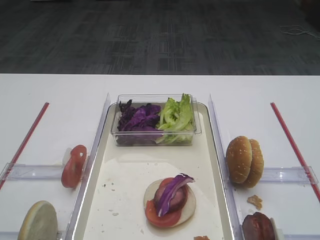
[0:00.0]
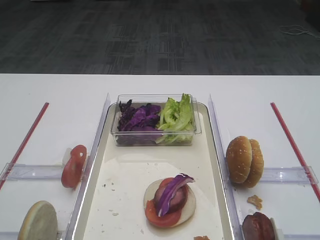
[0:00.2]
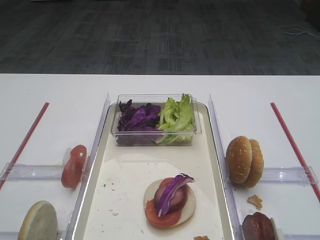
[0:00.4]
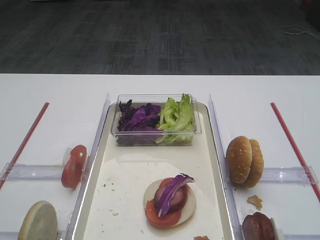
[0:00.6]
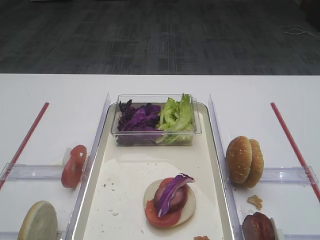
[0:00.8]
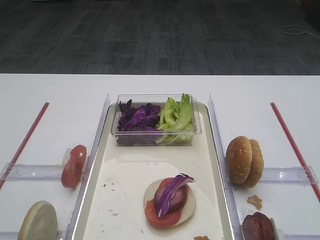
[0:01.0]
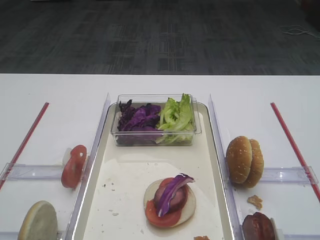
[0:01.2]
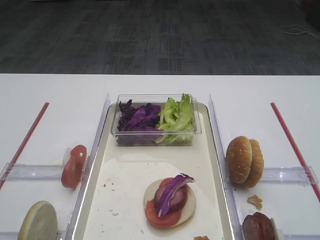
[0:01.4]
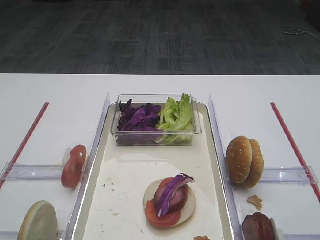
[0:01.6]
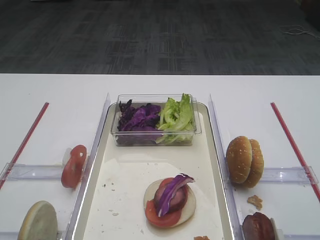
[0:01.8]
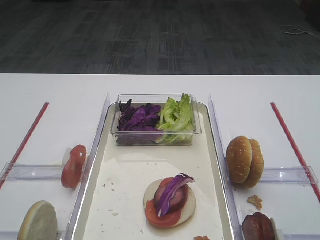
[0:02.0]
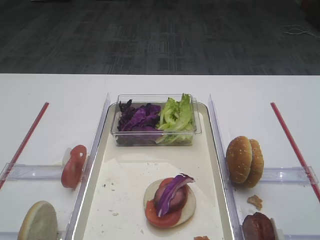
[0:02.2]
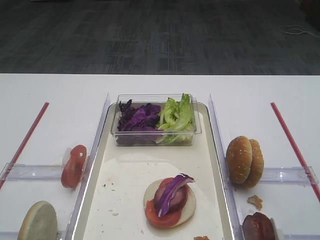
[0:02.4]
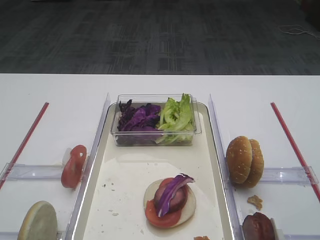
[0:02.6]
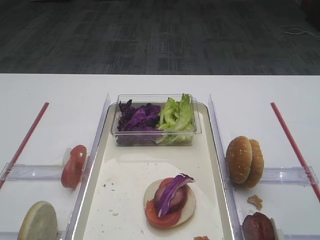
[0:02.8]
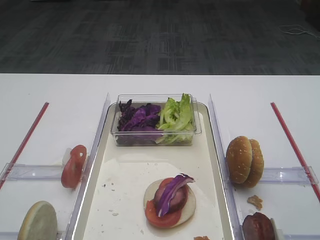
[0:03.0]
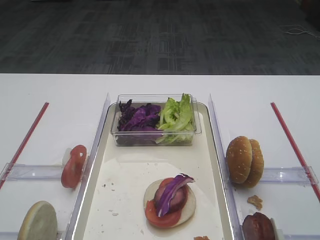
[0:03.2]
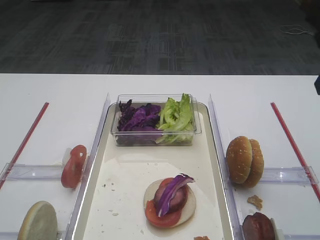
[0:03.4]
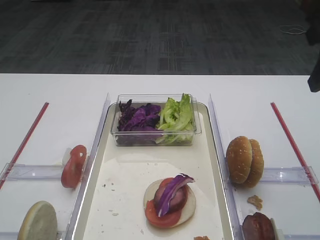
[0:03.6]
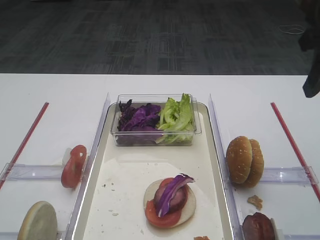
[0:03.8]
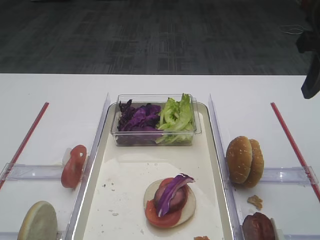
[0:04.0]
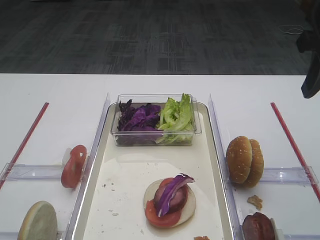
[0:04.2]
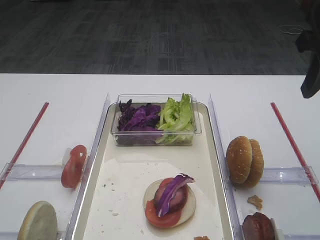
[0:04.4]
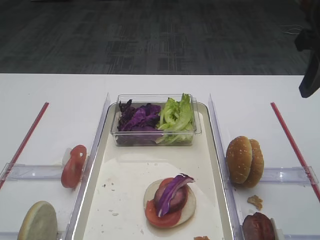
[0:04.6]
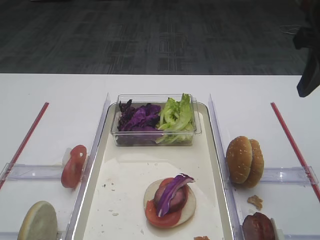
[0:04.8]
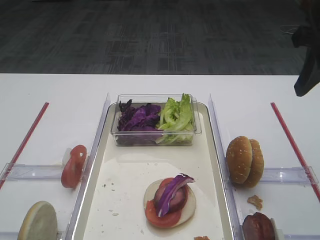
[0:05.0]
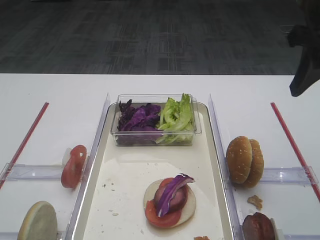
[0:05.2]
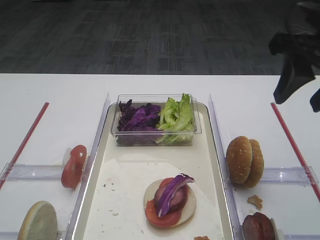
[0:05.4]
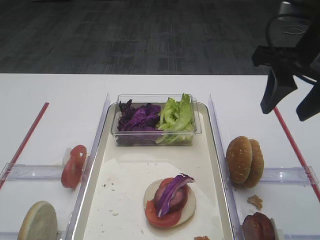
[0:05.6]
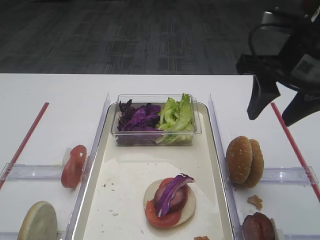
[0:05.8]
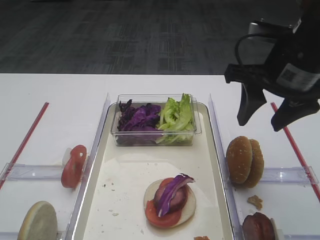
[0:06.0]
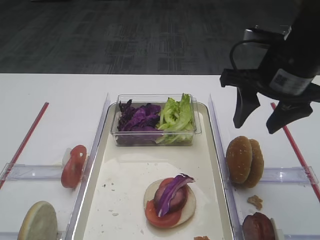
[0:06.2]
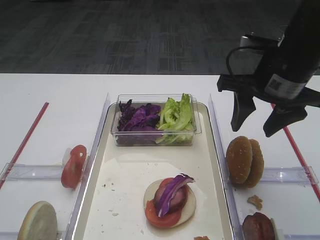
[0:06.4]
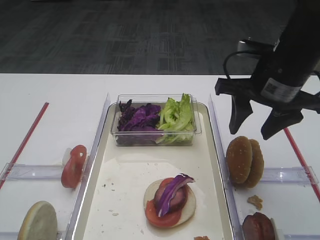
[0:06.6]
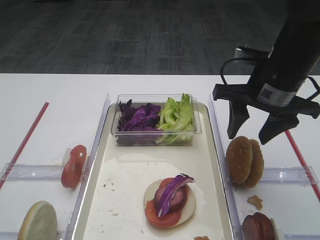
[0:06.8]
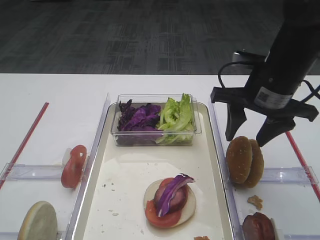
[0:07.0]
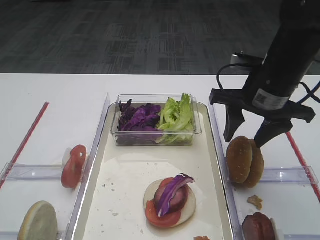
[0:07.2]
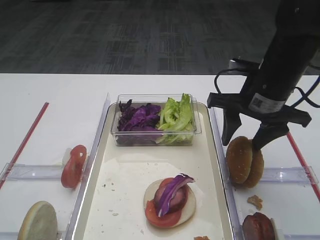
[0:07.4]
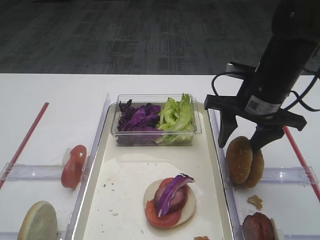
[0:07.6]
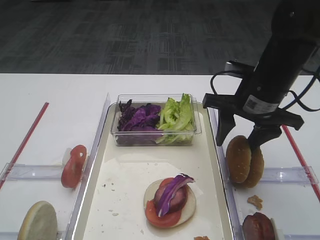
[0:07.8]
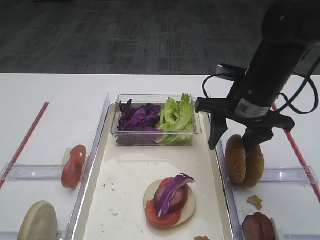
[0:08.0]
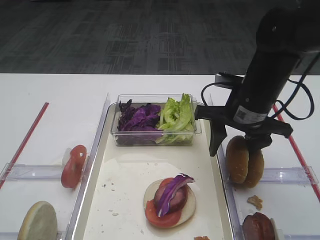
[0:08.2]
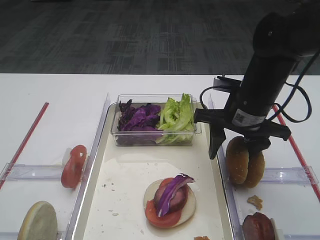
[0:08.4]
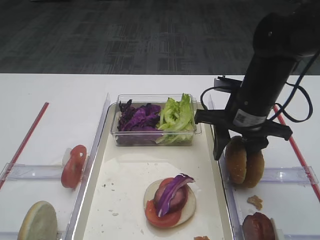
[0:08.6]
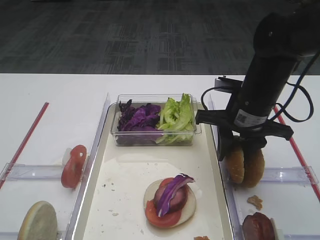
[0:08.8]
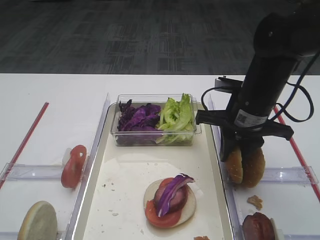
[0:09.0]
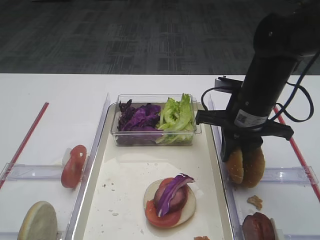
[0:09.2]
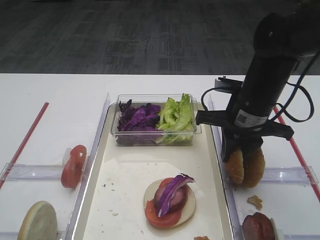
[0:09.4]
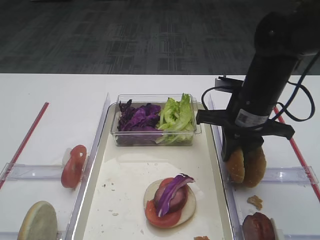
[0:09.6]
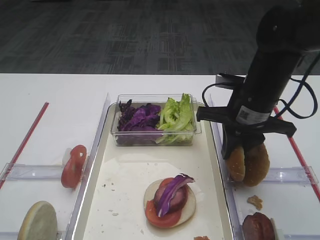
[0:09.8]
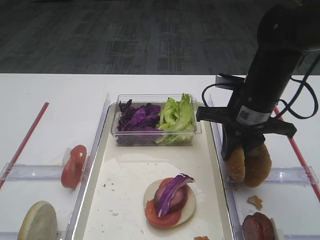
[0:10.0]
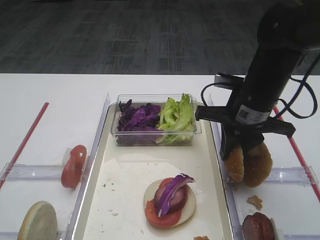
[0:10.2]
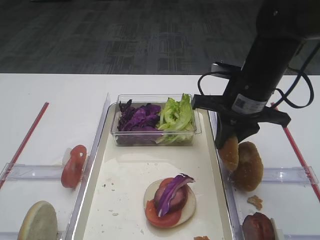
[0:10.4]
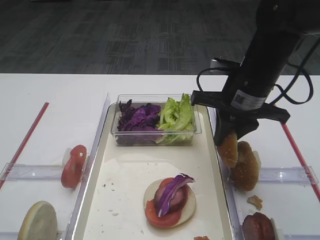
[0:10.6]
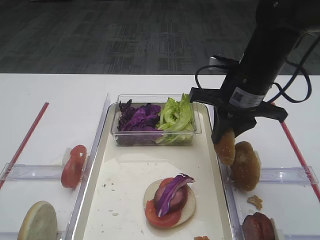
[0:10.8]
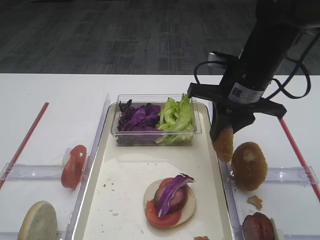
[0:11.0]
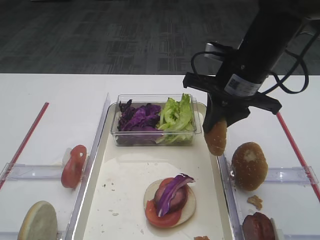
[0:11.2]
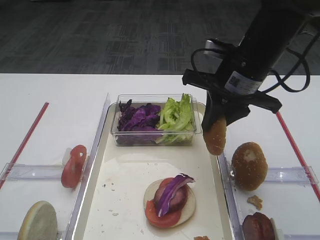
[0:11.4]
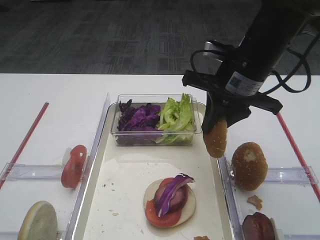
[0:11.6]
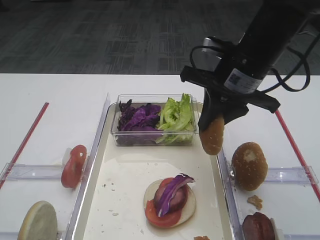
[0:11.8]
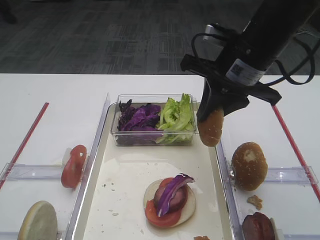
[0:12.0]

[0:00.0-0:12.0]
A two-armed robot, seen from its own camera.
Step, 0:00.0 to 0:11.6: Pick up the hamburger lid with the right gripper.
0:03.0 to 0:04.4: The right gripper heads forward, covering some 5 cm.
0:04.4 to 0:06.0: The right gripper is displaced to the left by some 5 cm.
0:06.0 to 0:07.6: The right gripper shifts some 10 cm downward.
0:07.6 to 0:09.0: The right gripper closes its fingers.
0:09.0 to 0:10.4: There are only small adjustments of the grippers.
0:10.4 to 0:12.0: The right gripper is displaced upward by some 5 cm.

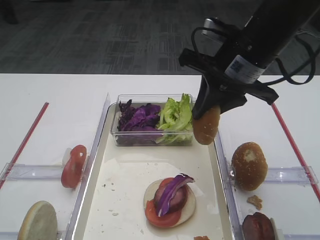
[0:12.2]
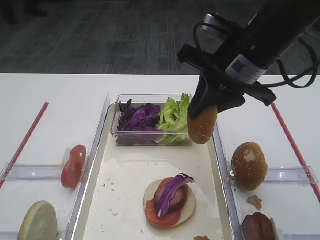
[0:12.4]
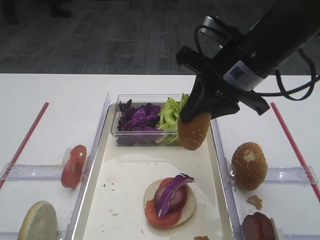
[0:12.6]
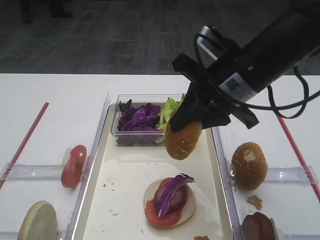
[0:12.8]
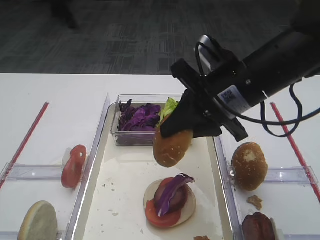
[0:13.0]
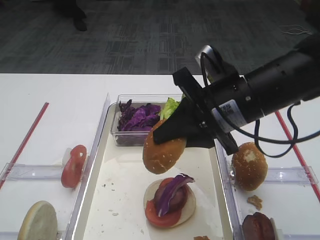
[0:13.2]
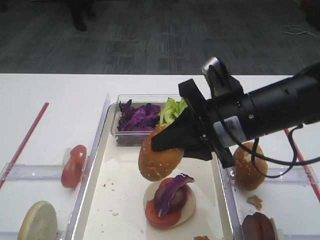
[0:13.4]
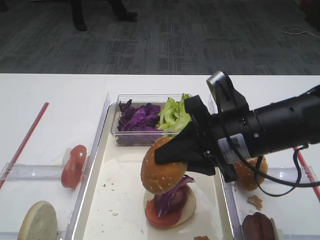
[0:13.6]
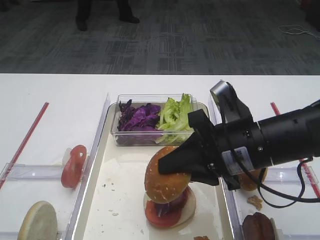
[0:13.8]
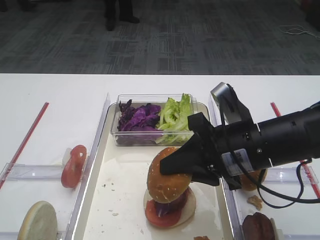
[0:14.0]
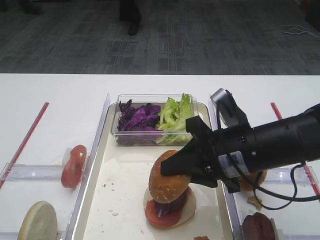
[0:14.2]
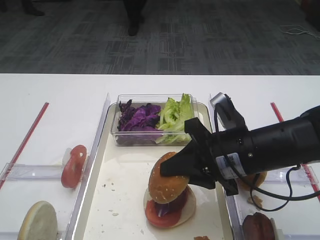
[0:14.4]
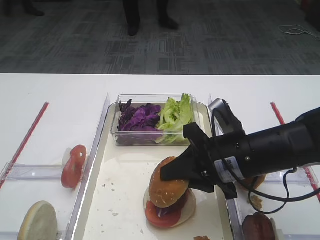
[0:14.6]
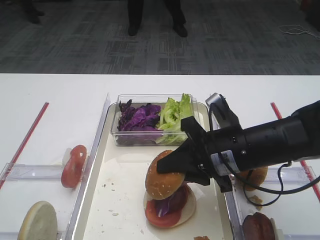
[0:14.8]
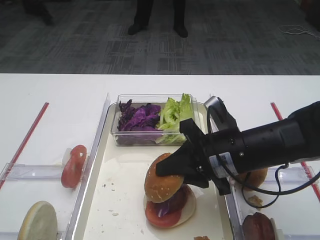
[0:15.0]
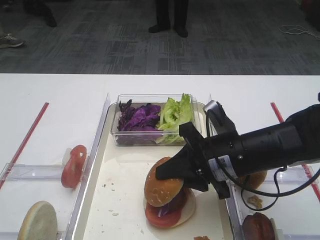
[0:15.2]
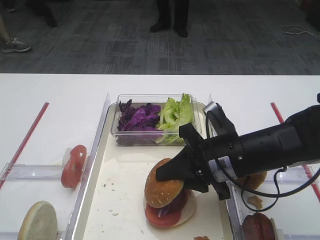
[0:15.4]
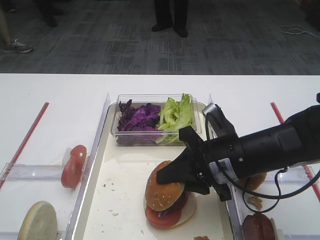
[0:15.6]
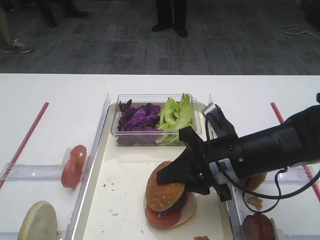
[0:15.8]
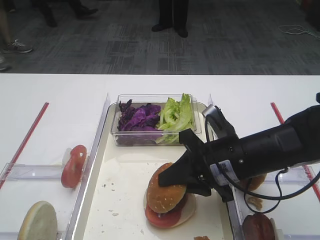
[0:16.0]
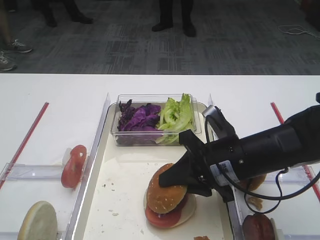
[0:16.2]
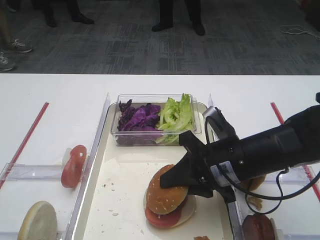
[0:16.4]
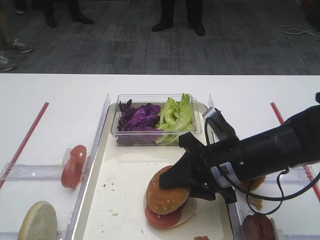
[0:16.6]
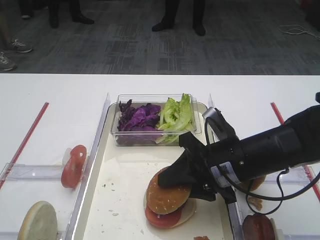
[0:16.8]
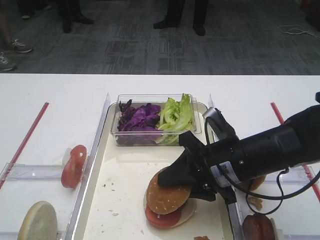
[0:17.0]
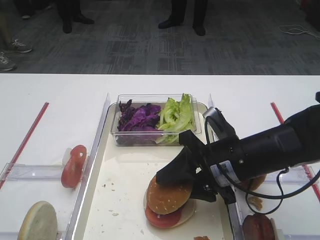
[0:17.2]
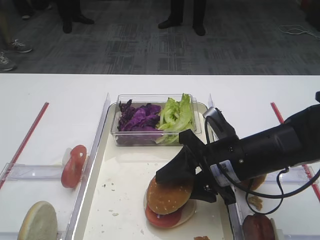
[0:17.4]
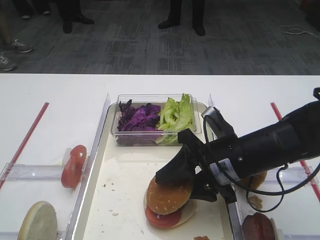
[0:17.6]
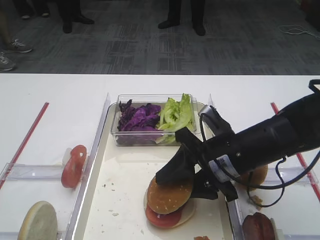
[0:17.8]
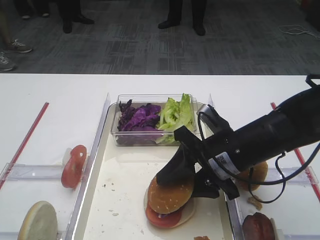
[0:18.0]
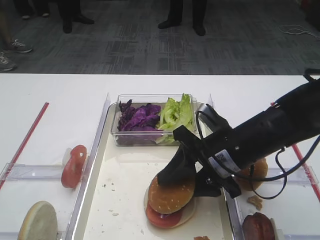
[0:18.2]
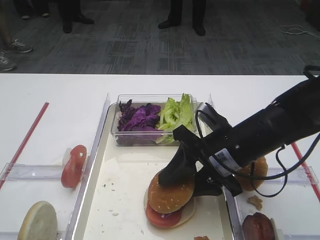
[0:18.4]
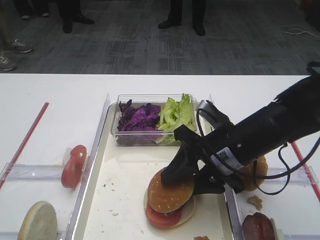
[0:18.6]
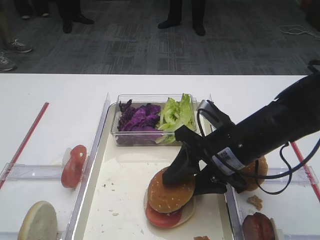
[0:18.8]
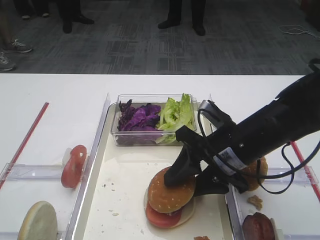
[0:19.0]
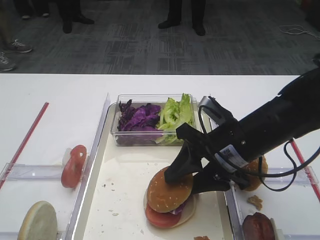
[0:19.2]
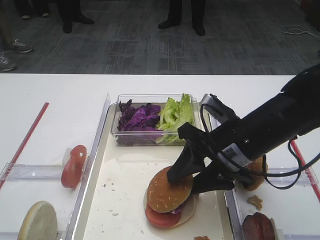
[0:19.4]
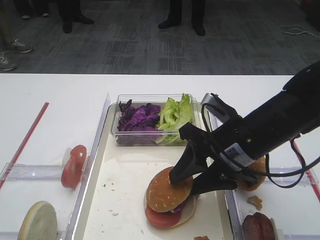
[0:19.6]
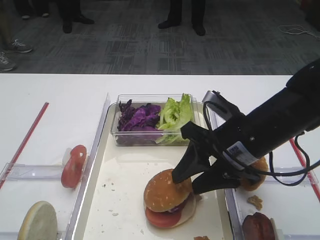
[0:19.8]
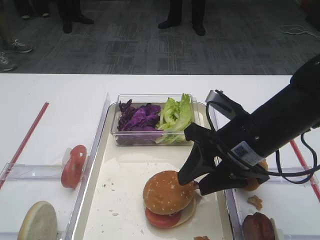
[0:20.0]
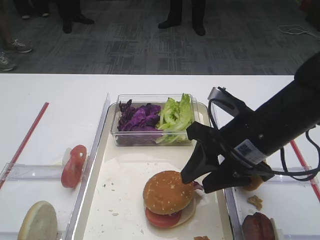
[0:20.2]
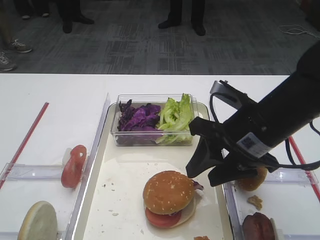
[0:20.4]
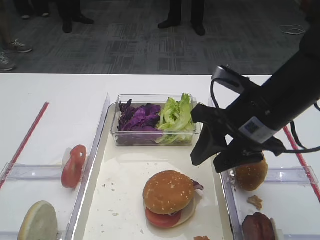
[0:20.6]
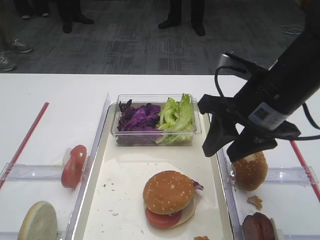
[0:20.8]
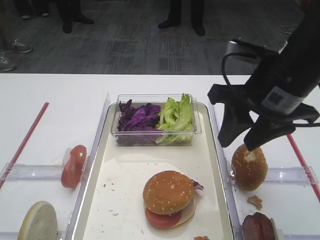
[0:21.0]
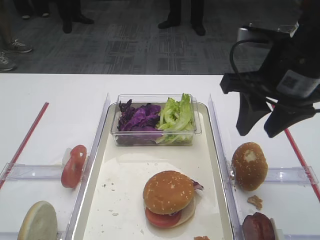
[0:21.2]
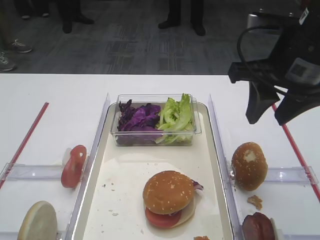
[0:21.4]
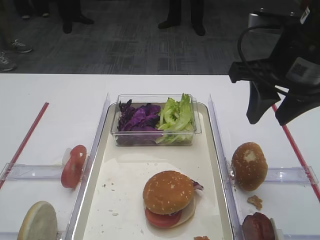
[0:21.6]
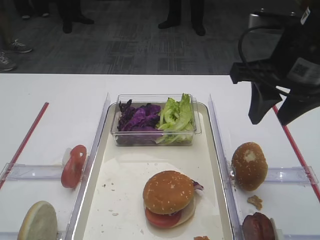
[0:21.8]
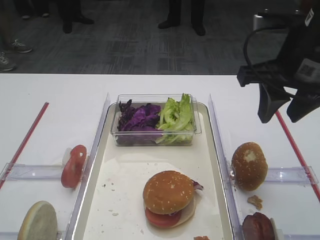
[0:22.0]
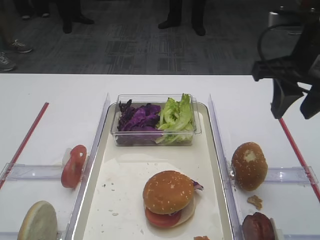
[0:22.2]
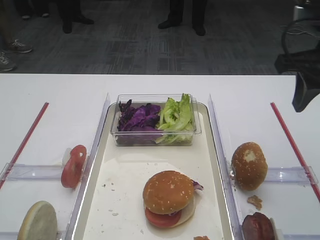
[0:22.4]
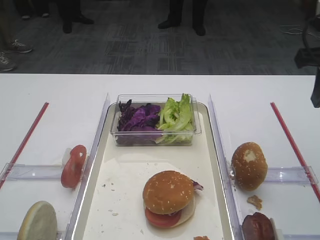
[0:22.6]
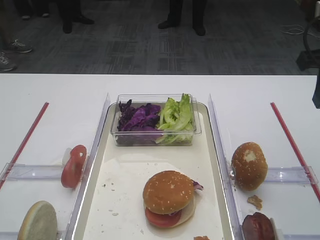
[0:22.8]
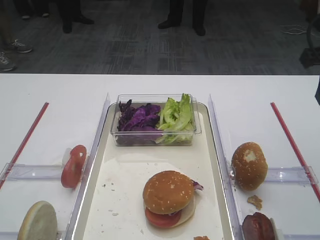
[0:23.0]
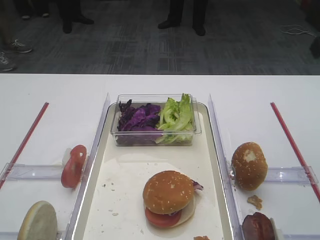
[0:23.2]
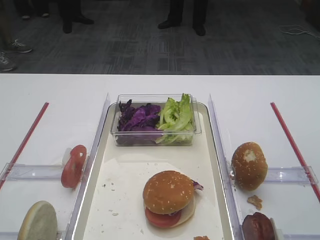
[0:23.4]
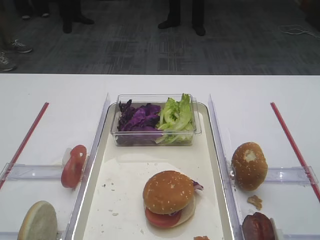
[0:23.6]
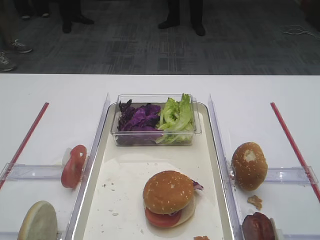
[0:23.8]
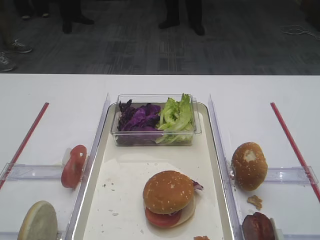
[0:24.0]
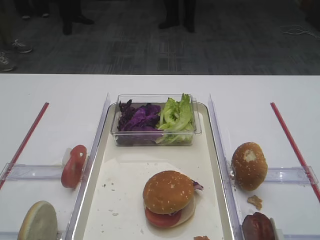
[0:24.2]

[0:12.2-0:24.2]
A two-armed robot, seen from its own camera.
Step, 0:12.2 to 0:20.6: Place the hamburger lid on the purple cabbage with the right gripper.
0:12.2 to 0:13.8: The right gripper shifts about 15 cm downward and backward.
0:13.8 to 0:15.2: The right gripper shifts by approximately 5 cm.
0:15.2 to 0:16.6: The two grippers keep their place.
0:16.6 to 0:18.2: The right gripper opens up.
0:18.2 to 0:19.8: The grippers move only a little.
0:19.8 to 0:21.2: The right gripper heads upward, covering approximately 10 cm.
0:21.2 to 0:22.6: The right gripper heads to the right, covering approximately 10 cm.
0:22.6 to 0:24.2: The right gripper moves backward, about 20 cm.
